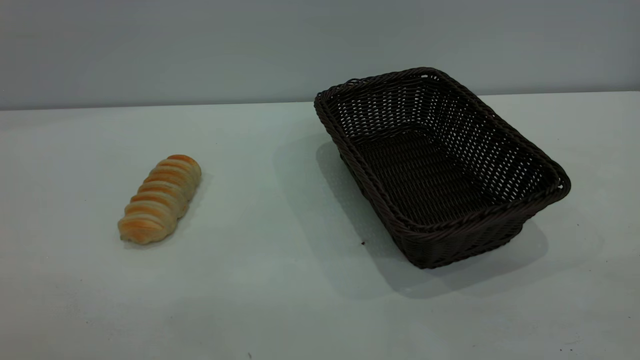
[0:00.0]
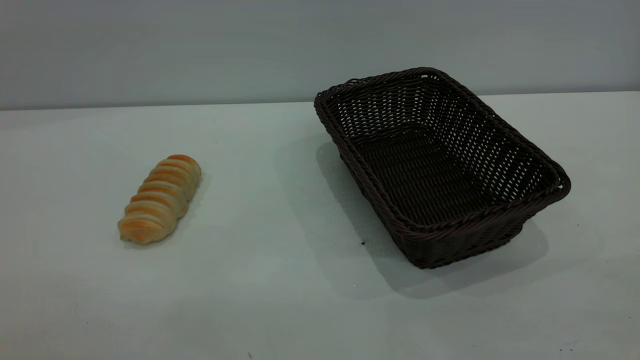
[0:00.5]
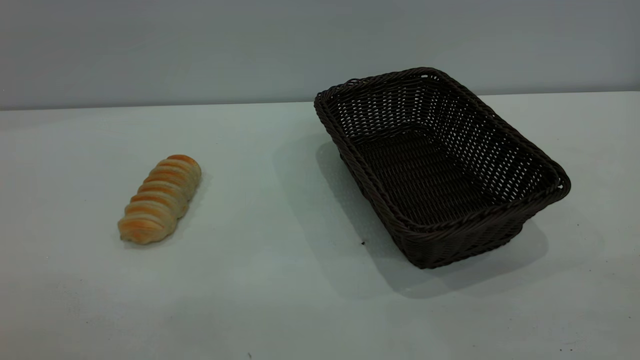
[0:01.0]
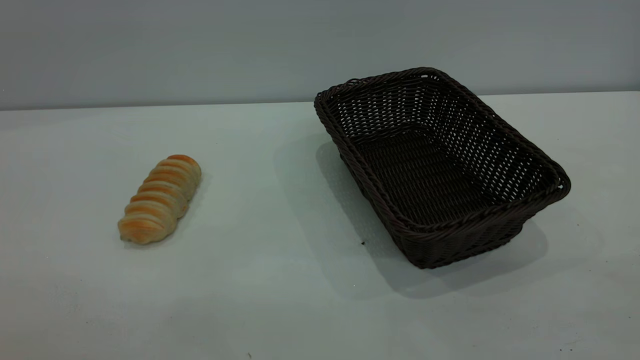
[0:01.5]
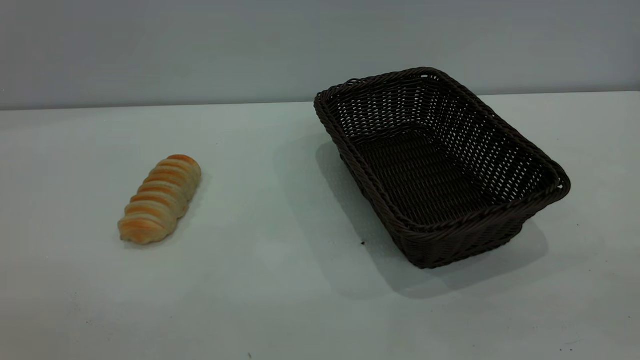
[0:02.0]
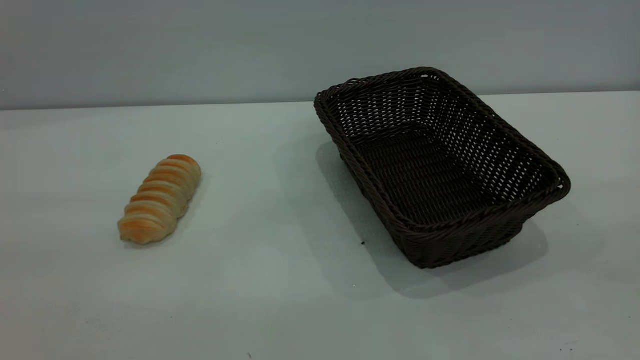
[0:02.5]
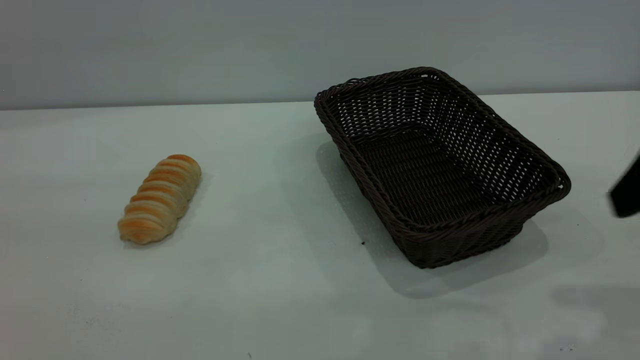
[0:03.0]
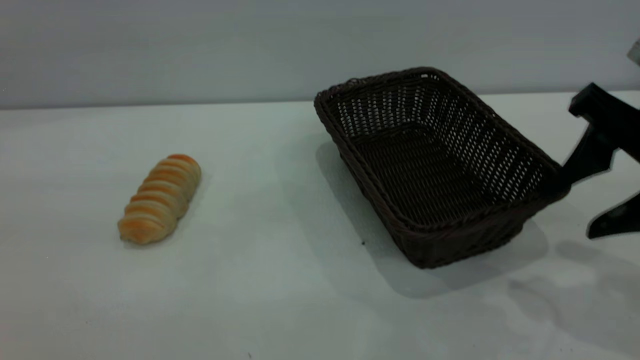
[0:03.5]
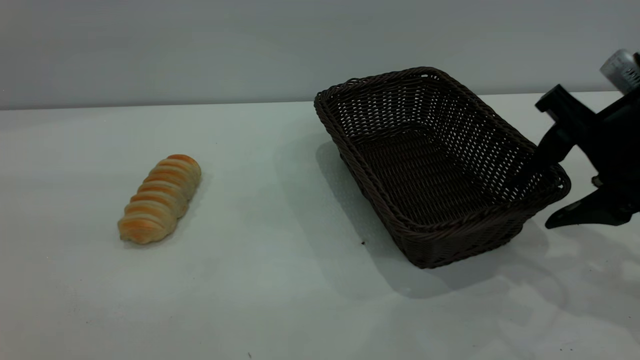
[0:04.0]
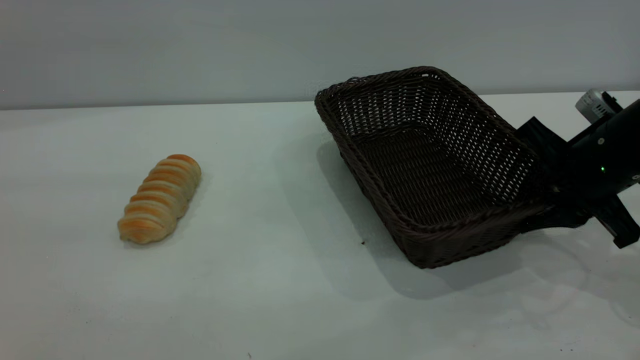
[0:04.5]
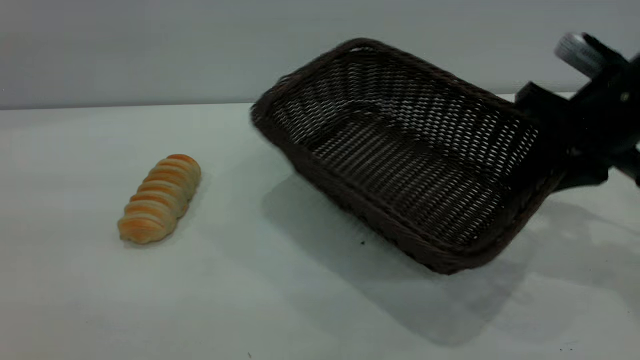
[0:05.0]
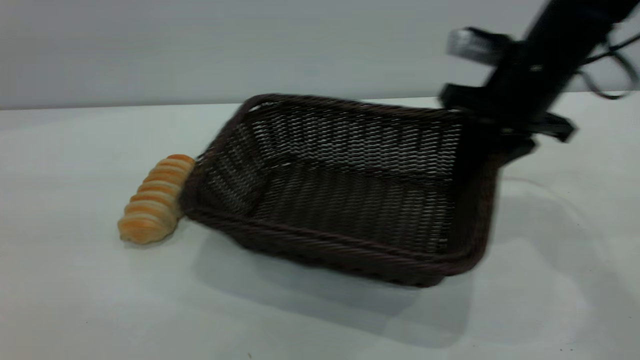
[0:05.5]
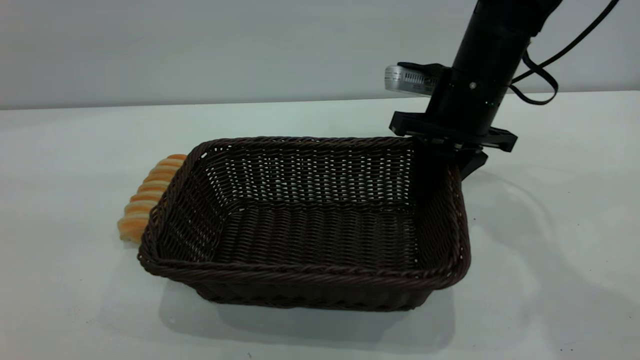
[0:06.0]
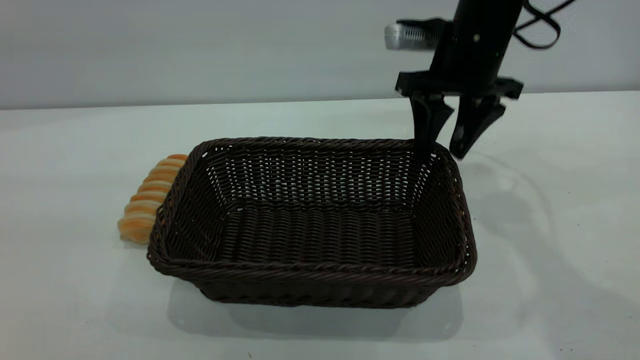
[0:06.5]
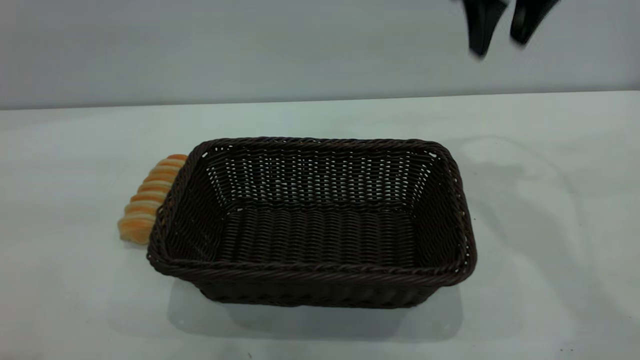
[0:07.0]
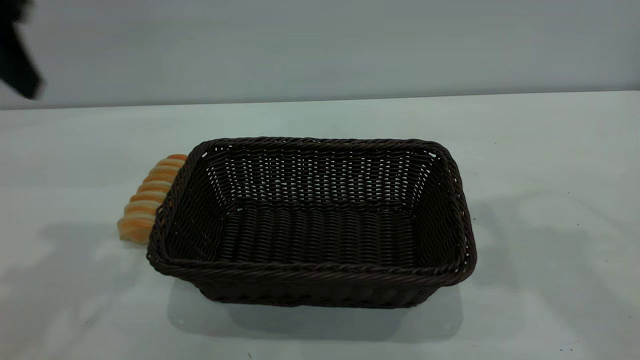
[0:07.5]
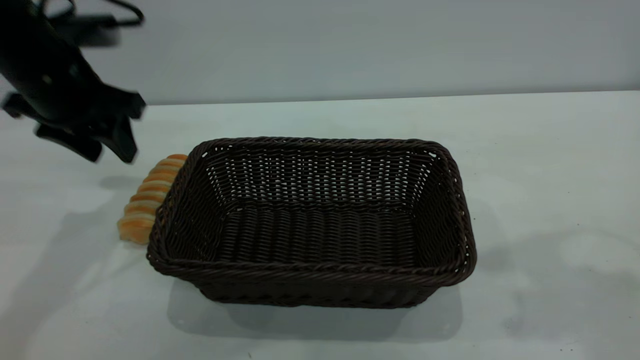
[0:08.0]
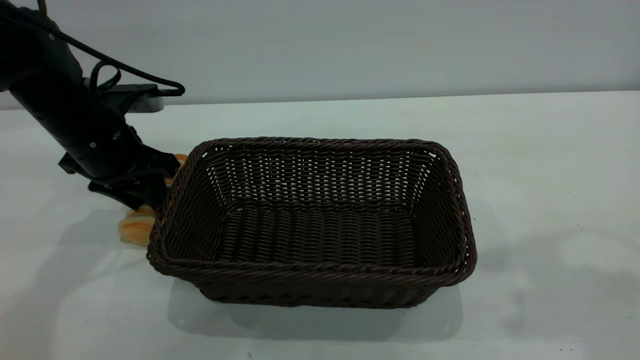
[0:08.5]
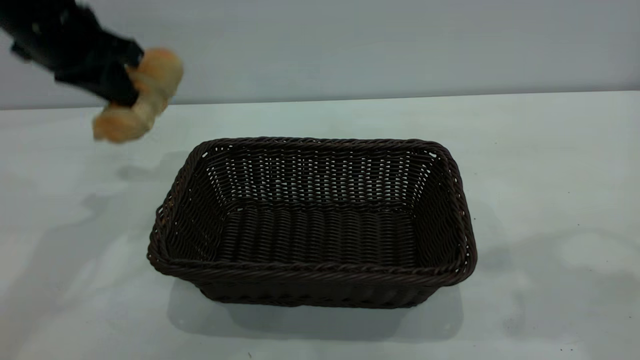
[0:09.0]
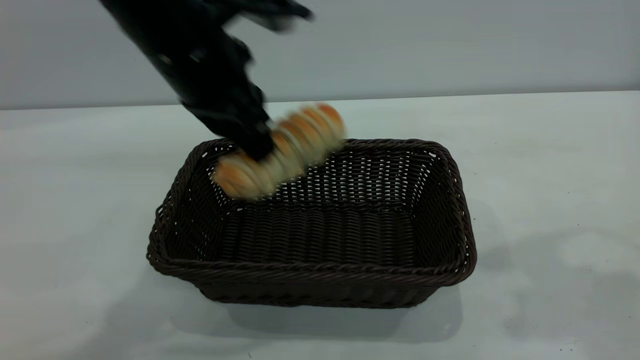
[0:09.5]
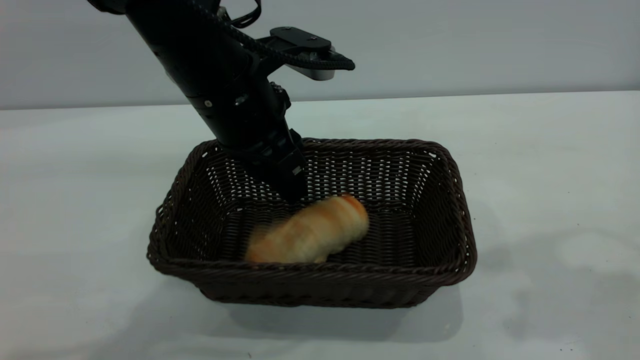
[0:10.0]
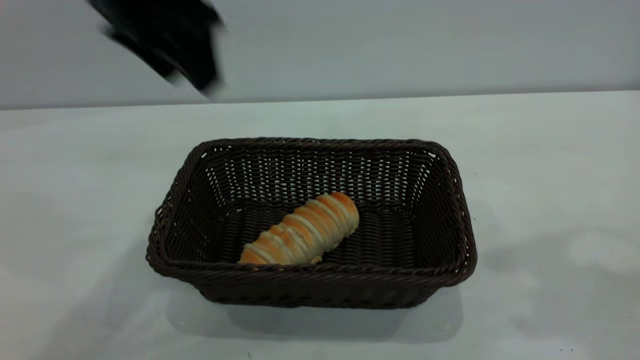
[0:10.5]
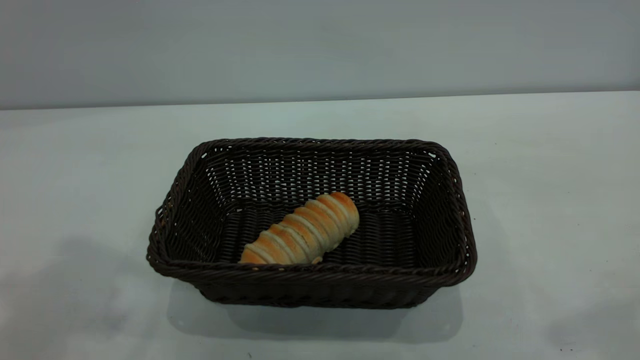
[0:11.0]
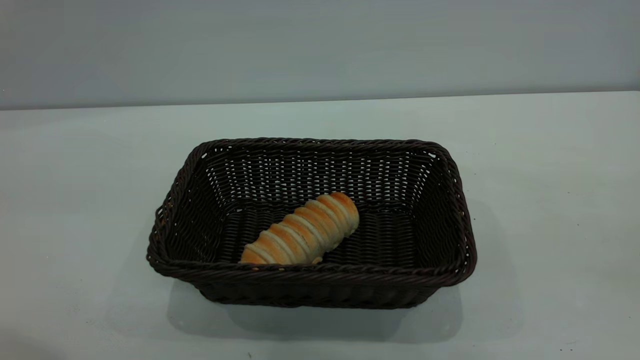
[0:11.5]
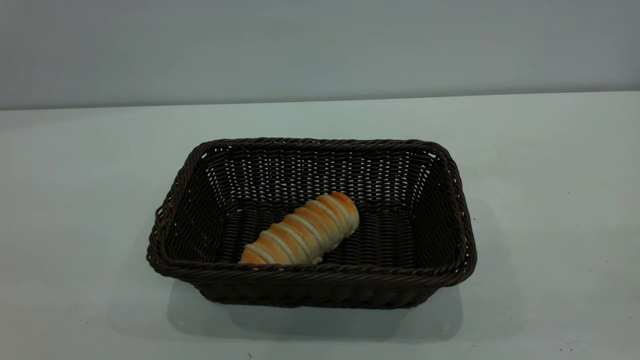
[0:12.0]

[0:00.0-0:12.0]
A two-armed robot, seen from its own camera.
Task of the whole recording: One hand grasps the black basket and places it in the middle of the table, while the other hand picks up the long bread and puts it into the black basket.
Step, 0:00.0 to 0:06.5: Move the basket to the center of view.
Step, 0:09.5 to 0:10.0: place the bread into the basket.
0:02.0 to 0:04.0: The right gripper shifts approximately 35 cm forward and downward.
0:04.0 to 0:06.0: The right gripper moves forward and to the left, some 15 cm, and closes up.
0:06.0 to 0:08.0: The left gripper is displaced forward and downward by some 35 cm. The right gripper heads upward and backward, covering some 30 cm, and opens up.
0:08.0 to 0:10.0: The left gripper shifts some 15 cm to the right, and closes its fingers.
0:10.0 to 0:12.0: The left gripper shifts roughly 35 cm backward, to the left and upward, and opens up. Meanwhile the right gripper travels backward by roughly 25 cm.

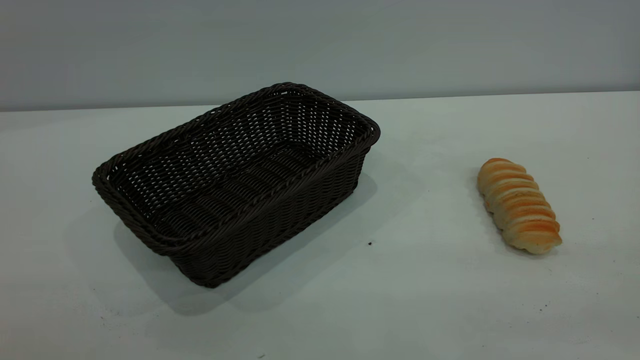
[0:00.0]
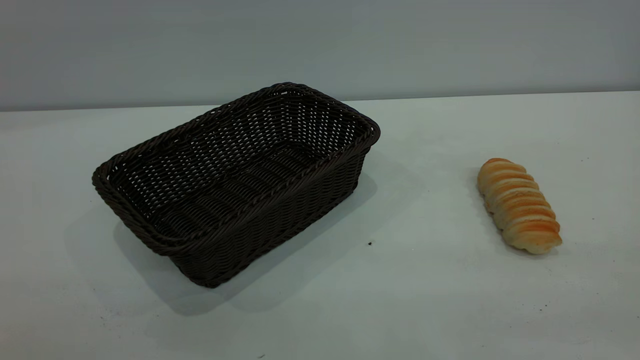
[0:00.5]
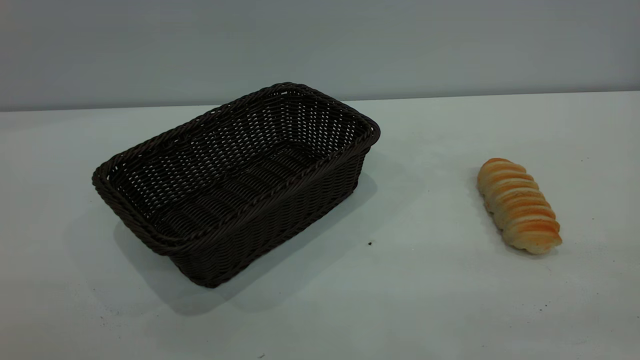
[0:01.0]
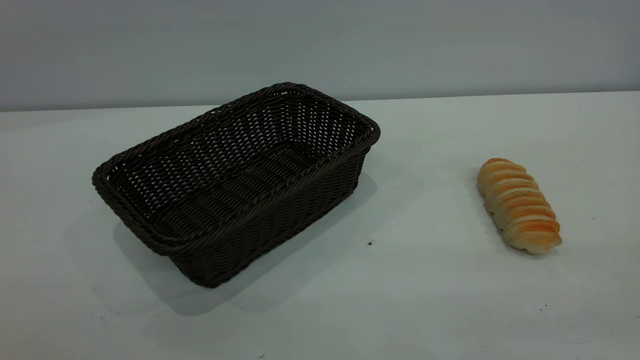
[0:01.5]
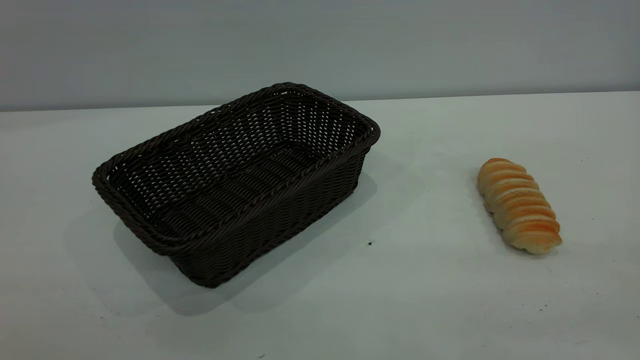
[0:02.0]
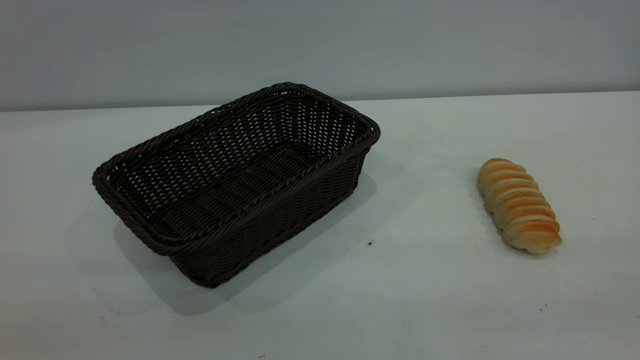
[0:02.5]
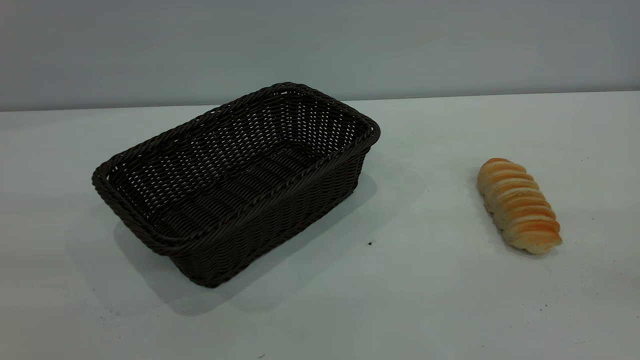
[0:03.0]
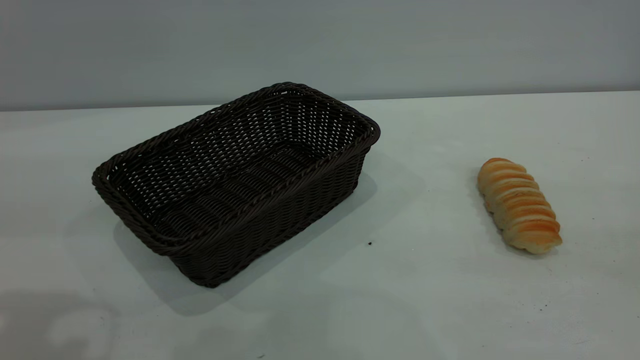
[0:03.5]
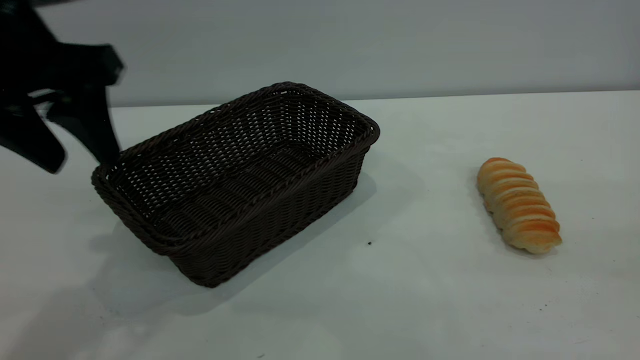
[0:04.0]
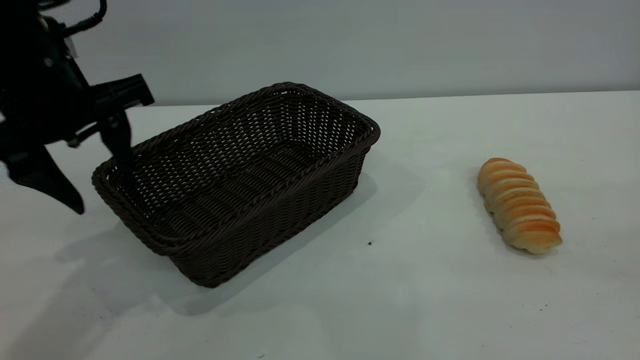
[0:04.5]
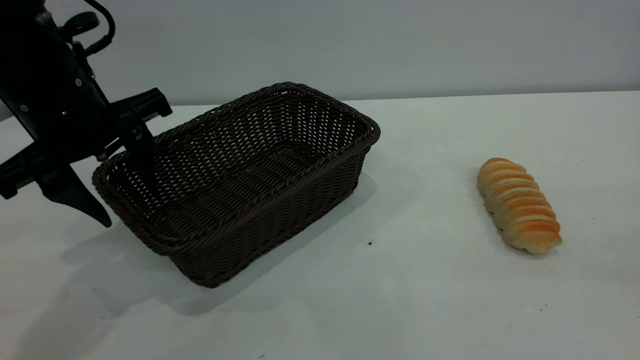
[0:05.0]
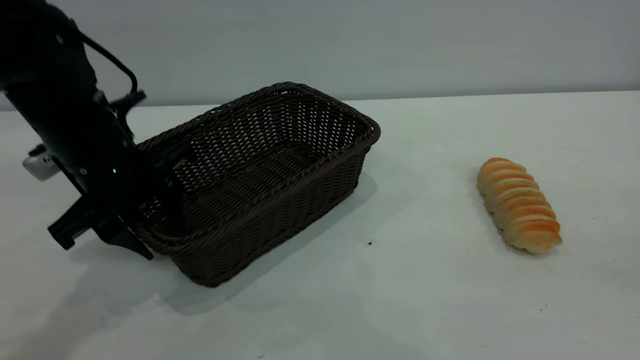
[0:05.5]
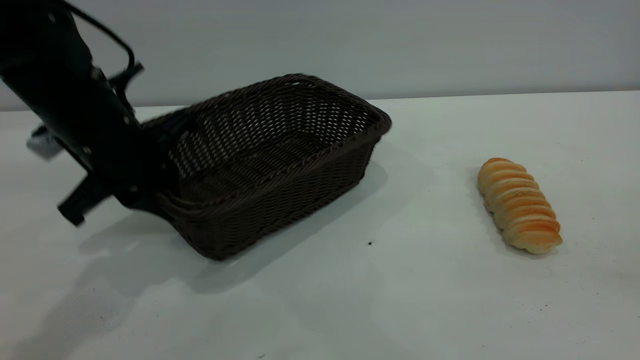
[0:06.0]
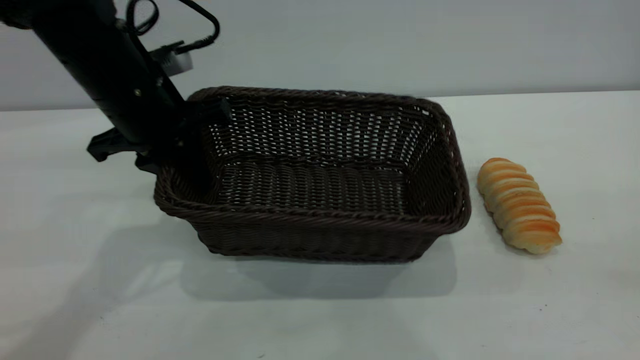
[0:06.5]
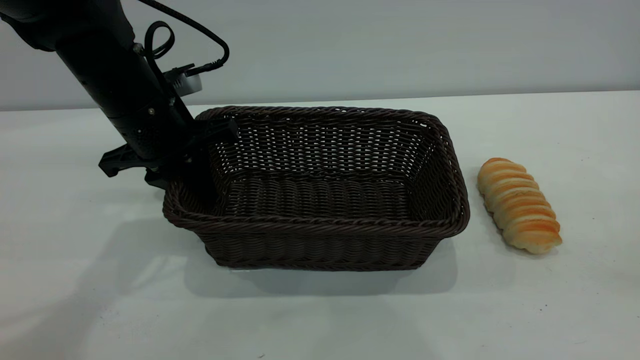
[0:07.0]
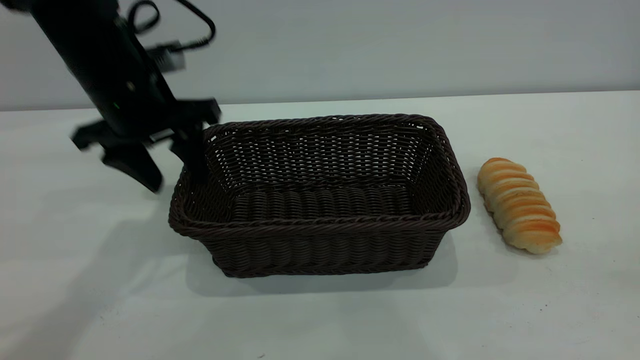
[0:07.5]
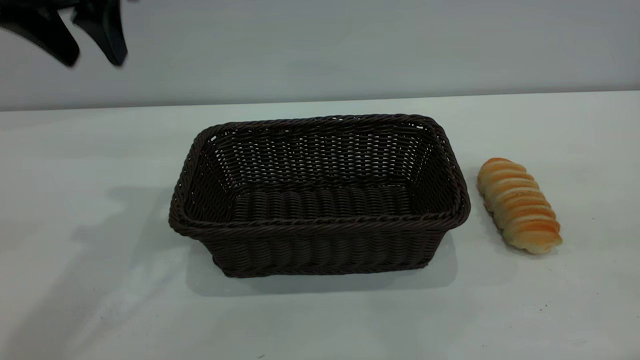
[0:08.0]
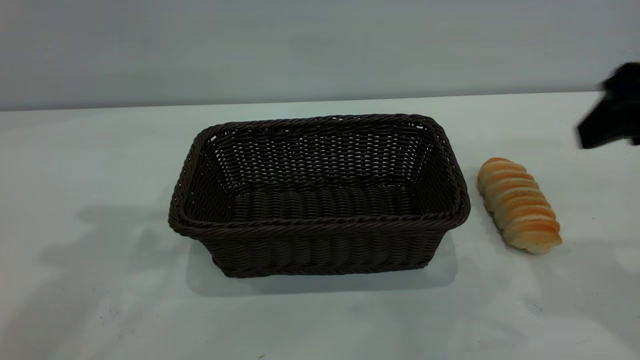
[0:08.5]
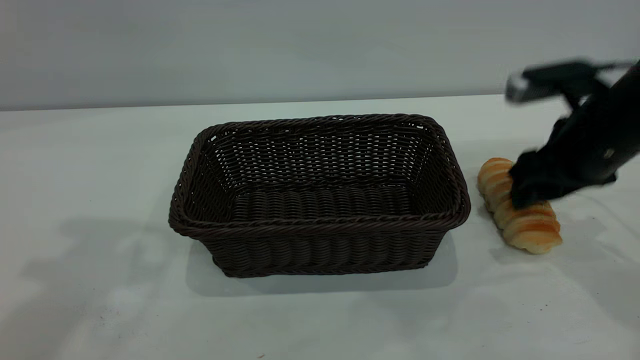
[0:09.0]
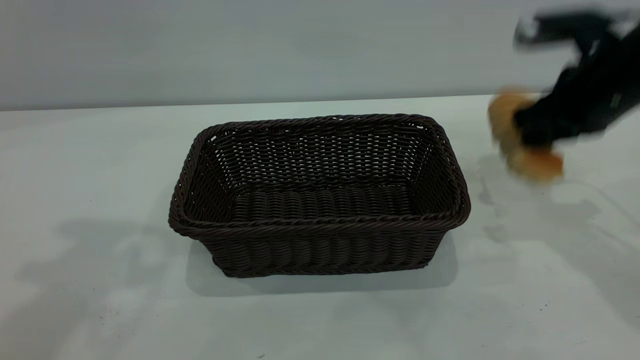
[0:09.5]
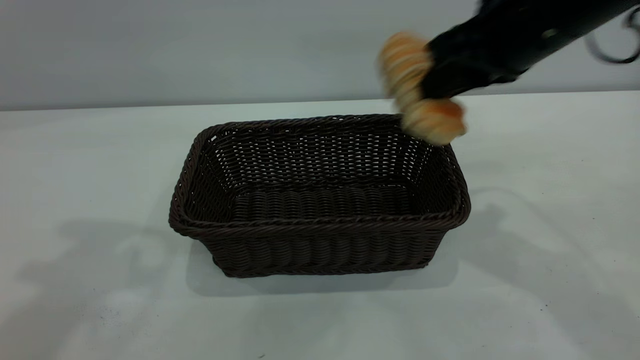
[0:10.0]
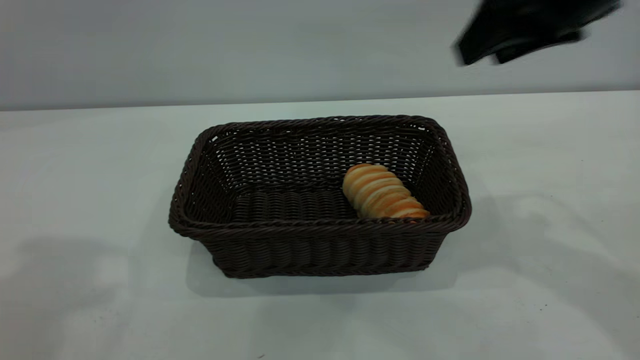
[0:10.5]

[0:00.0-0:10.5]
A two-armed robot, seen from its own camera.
Task of the whole recording: One hand grasps the black basket and places it in the middle of the table, while the other hand picks up the long bread and puts it into the black basket.
Step, 0:00.0 to 0:07.5: Move the basket to the center of view.
0:00.0 to 0:02.0: Neither gripper changes place.
0:02.0 to 0:04.0: The left gripper shifts about 30 cm forward.
0:04.0 to 0:06.5: The left gripper is displaced downward and forward by approximately 15 cm, and closes up.
0:06.5 to 0:08.5: The right gripper heads forward and downward, covering some 25 cm. Meanwhile the left gripper goes about 20 cm upward, and opens up.
0:08.5 to 0:10.5: The left gripper is displaced upward and backward by about 10 cm, while the right gripper goes about 5 cm upward, and closes, then opens again.
